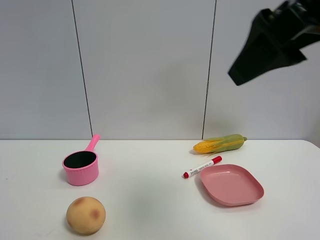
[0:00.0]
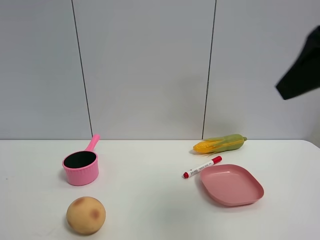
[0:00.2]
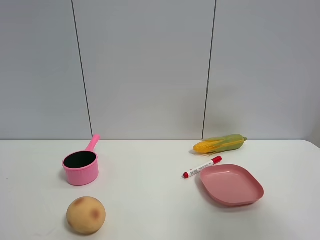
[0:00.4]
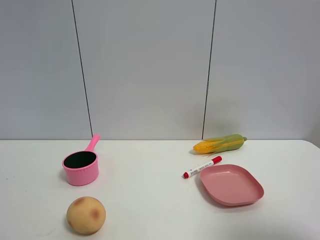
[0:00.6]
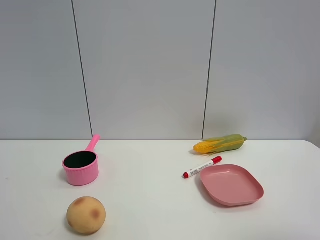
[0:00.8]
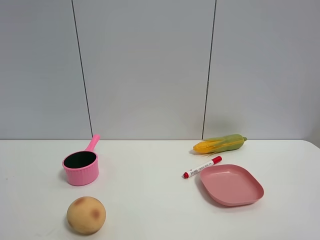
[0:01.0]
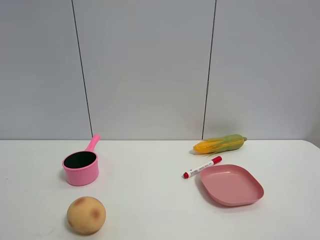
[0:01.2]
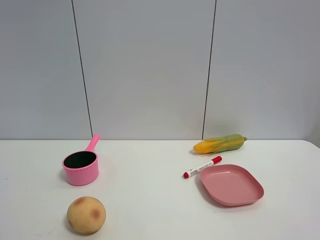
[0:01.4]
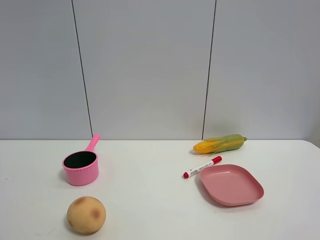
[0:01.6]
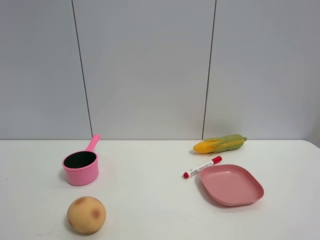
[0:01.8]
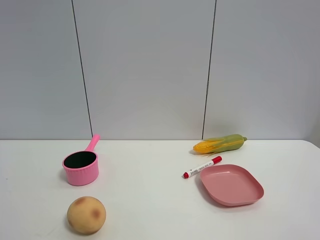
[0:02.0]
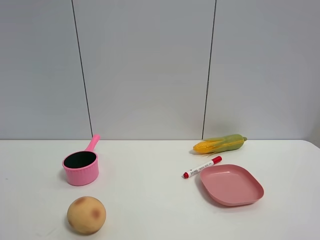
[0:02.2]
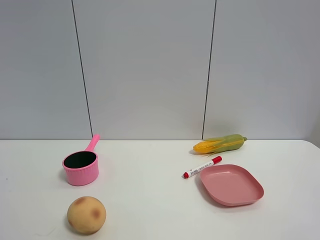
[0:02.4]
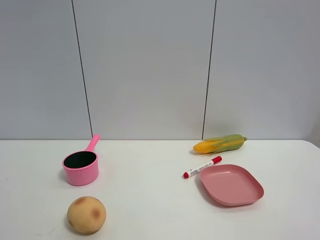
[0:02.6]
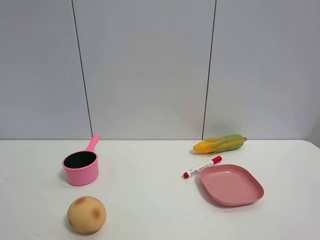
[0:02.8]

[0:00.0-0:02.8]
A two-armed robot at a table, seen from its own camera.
Task of the whole recording: the gripper move the object.
0:00.0 to 0:01.4: The right gripper goes roughly 25 cm backward, to the right and downward.

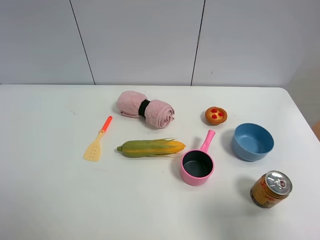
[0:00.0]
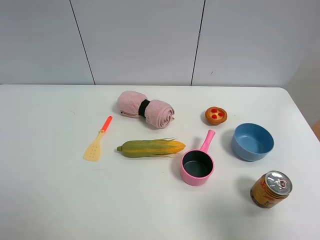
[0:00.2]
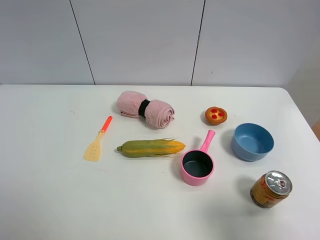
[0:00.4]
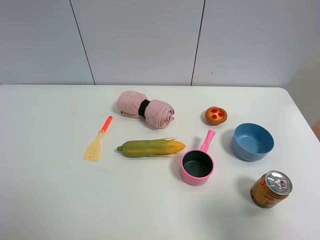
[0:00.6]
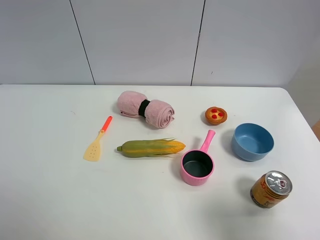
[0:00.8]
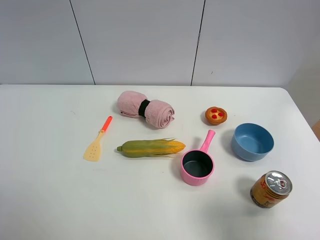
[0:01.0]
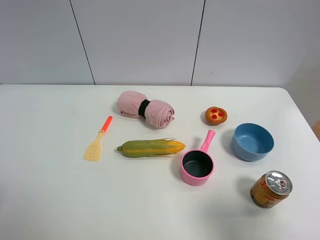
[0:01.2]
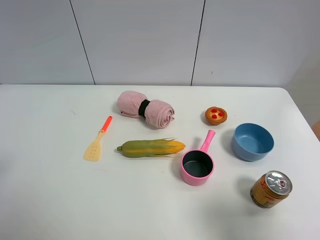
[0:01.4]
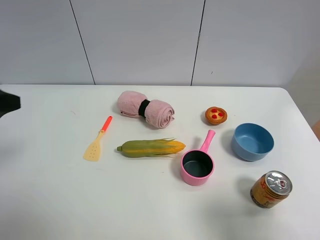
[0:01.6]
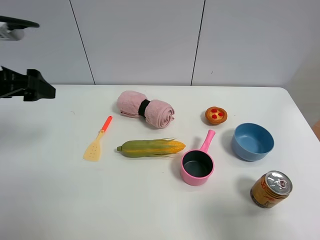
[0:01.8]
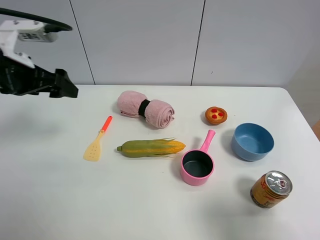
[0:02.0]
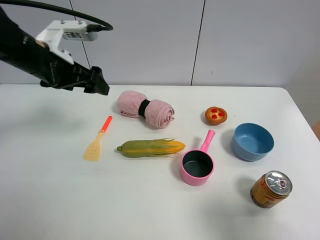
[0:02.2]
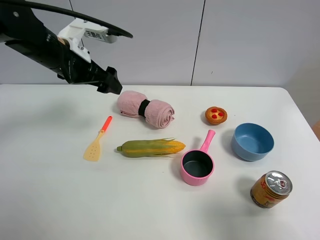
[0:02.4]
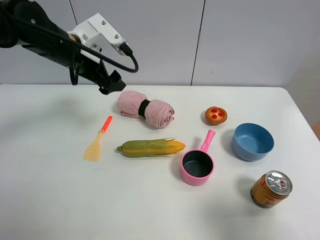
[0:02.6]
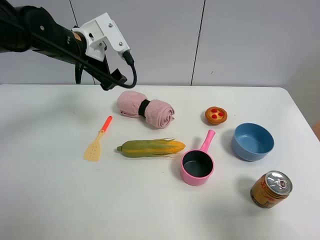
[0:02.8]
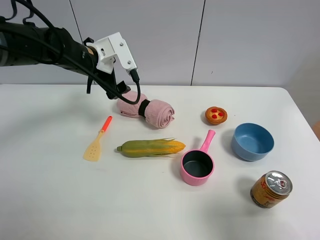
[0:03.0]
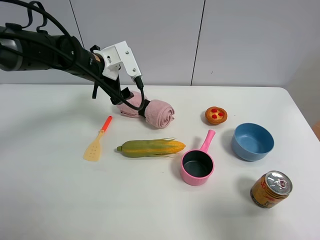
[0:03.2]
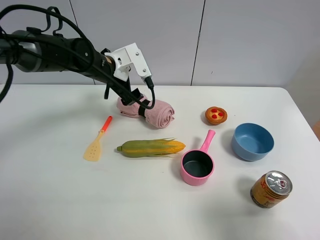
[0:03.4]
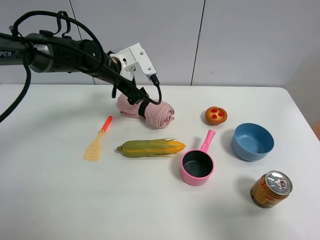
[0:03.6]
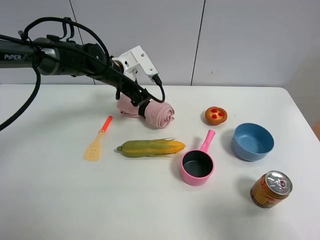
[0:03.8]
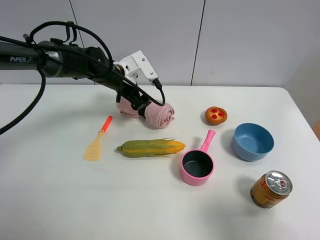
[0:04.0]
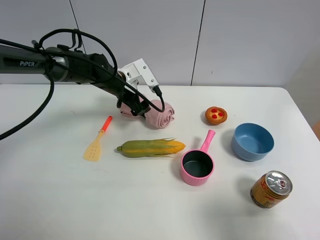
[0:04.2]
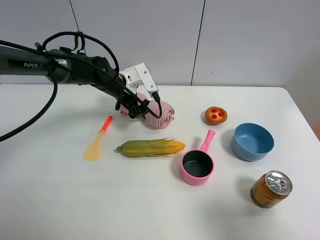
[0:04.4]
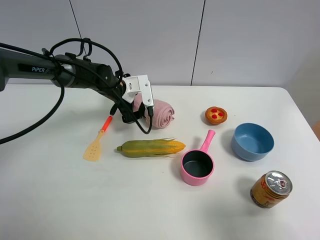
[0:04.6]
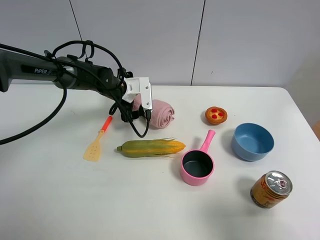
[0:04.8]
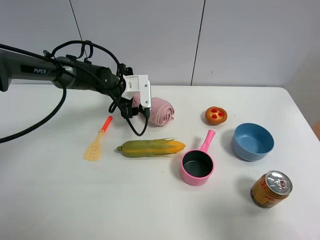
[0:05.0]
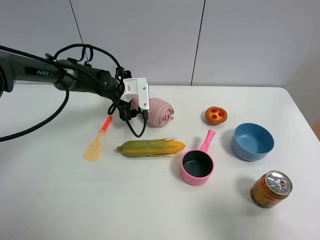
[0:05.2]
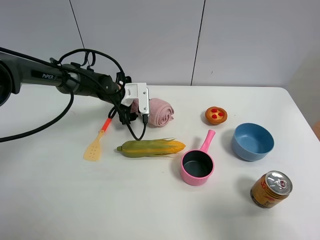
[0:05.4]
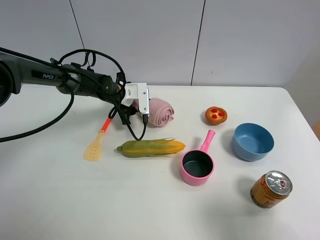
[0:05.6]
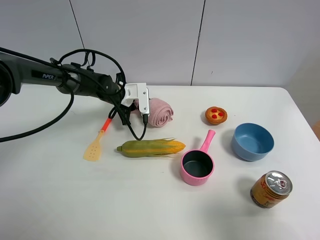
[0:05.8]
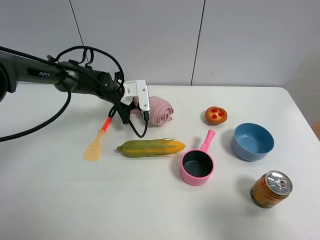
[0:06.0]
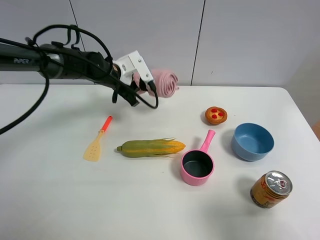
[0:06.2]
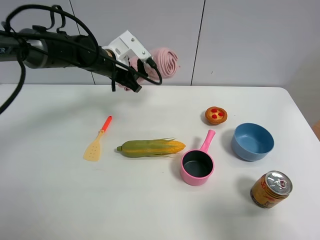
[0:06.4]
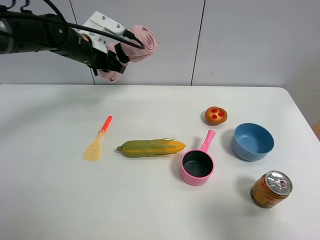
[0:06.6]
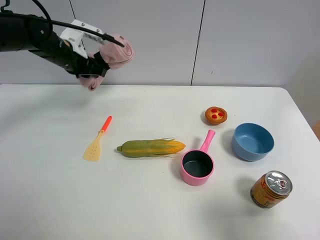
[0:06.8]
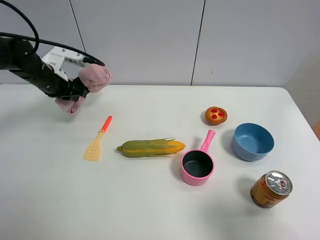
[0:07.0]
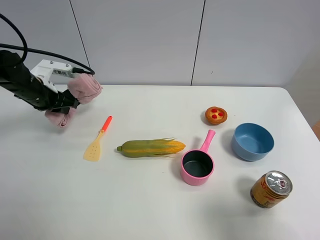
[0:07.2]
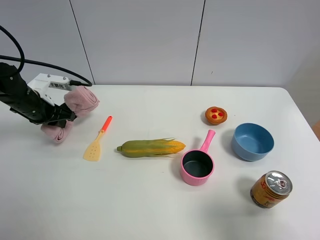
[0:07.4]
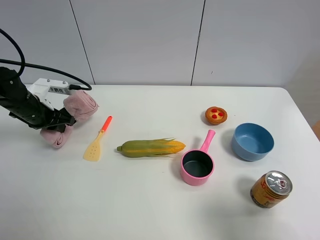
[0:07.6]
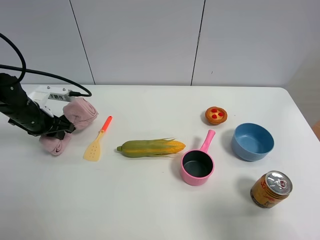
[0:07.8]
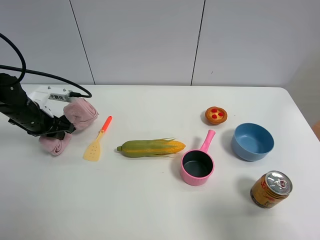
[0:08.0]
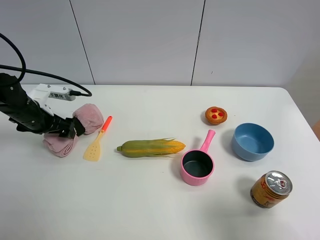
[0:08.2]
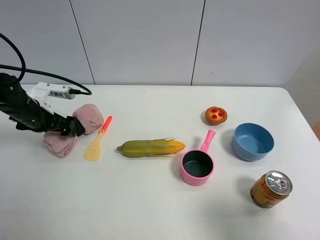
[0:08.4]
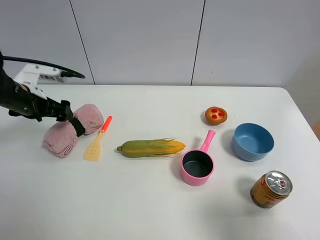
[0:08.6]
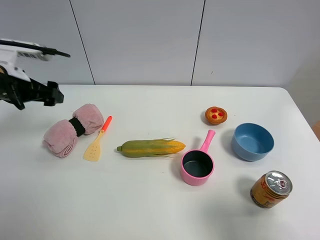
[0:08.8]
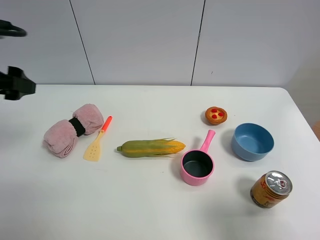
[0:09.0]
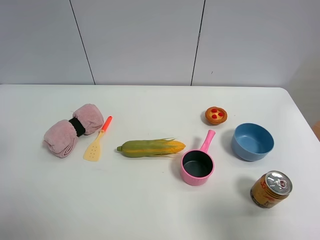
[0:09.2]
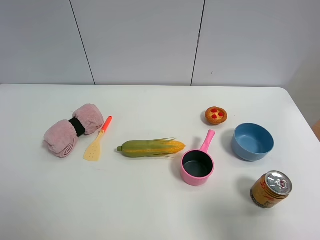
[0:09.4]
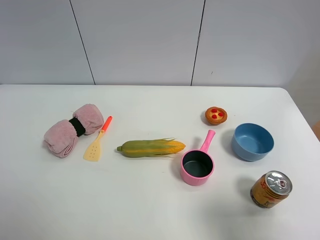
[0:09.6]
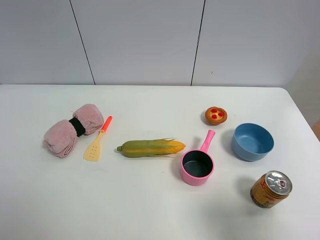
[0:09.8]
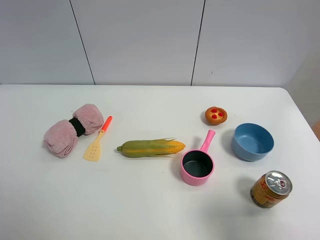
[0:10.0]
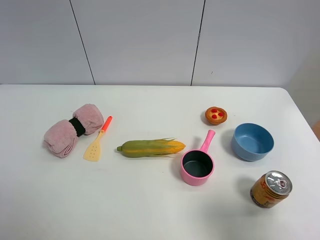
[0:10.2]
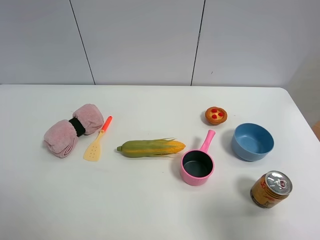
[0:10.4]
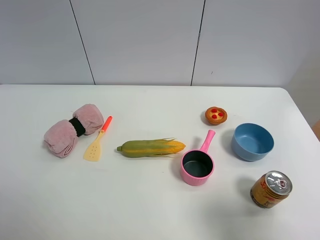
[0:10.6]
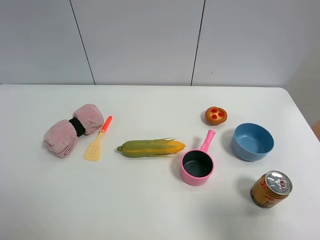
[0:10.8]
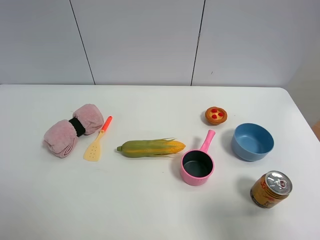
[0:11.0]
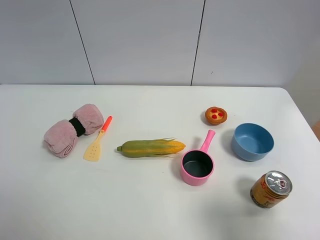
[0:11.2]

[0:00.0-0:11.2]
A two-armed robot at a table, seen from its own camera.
Task of the whole recording: the gripper move the object.
Step, 0:00.0 to 0:05.6: Grasp the pink towel with the left gripper.
Step, 0:05.8 to 0:08.4: Place the pink towel on the table with the left gripper.
0:00.0 to 0:01.6: The left gripper is displaced forward by approximately 20 cm.
0:01.6 to 0:03.2: The left gripper heads forward, to the right and downward, covering about 30 cm.
0:03.2 to 0:04.8: The left gripper moves downward, about 10 cm.
0:04.8 to 0:06.4: The left gripper heads upward, covering some 10 cm, and closes up.
0:06.4 to 0:08.0: The left gripper travels to the left, backward and downward by approximately 20 cm.
0:08.0 to 0:09.6: The left gripper shifts about 35 cm backward and upward, and opens.

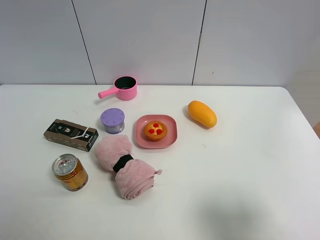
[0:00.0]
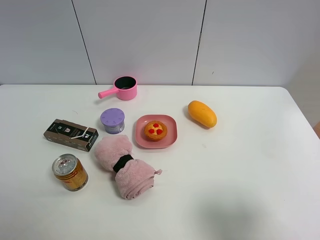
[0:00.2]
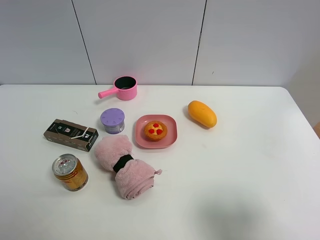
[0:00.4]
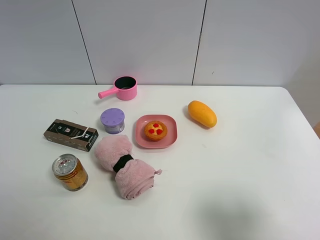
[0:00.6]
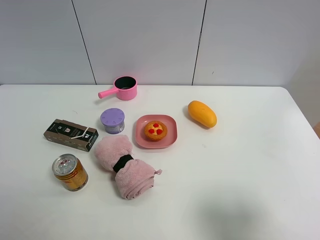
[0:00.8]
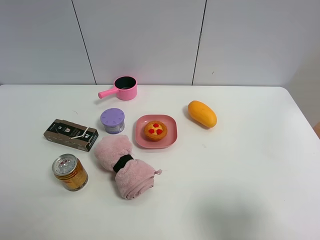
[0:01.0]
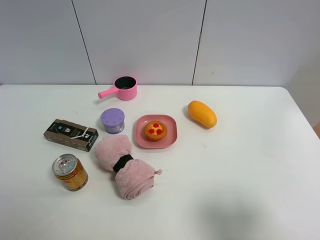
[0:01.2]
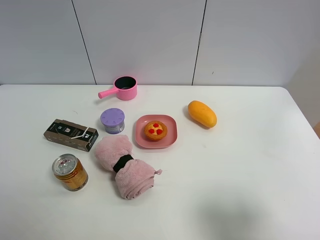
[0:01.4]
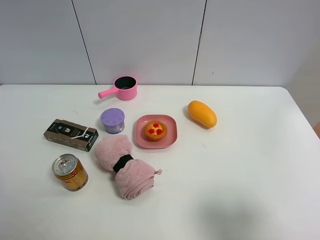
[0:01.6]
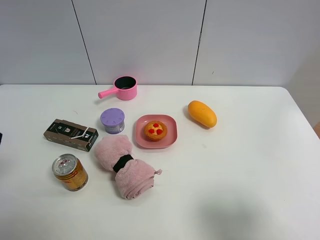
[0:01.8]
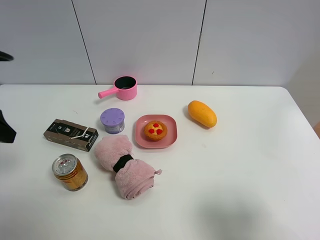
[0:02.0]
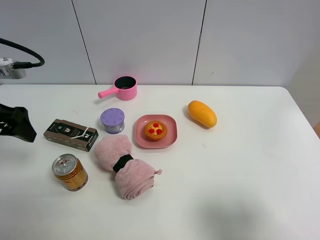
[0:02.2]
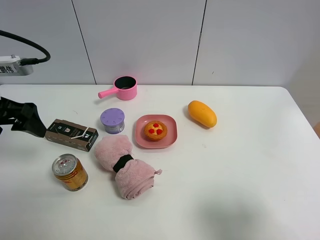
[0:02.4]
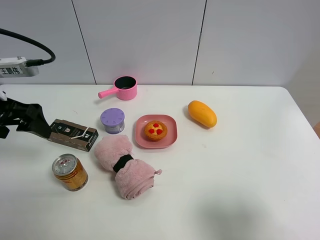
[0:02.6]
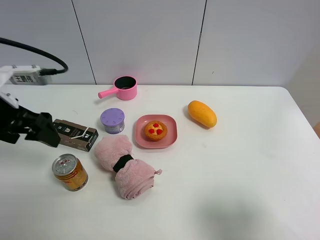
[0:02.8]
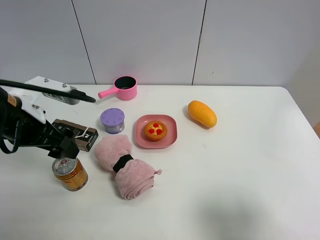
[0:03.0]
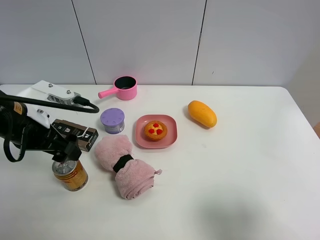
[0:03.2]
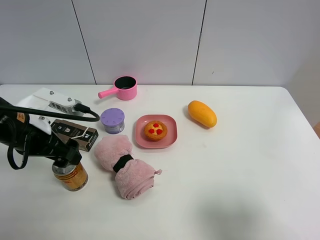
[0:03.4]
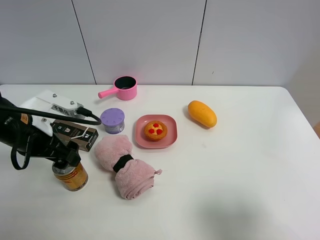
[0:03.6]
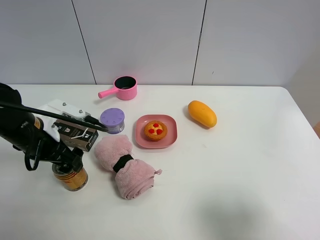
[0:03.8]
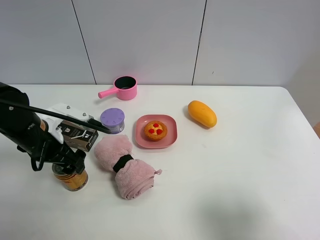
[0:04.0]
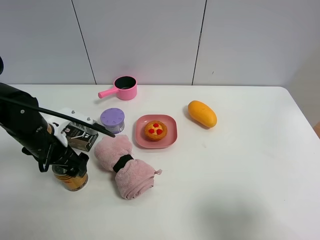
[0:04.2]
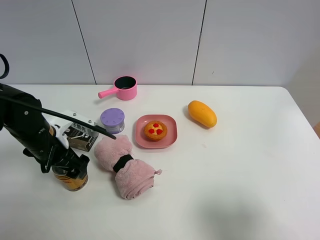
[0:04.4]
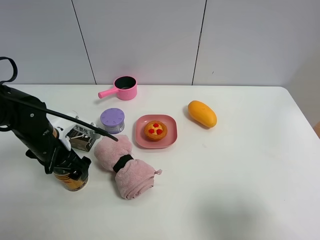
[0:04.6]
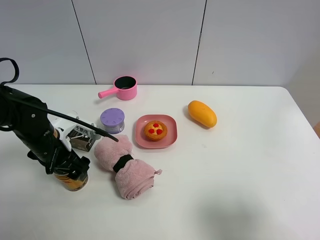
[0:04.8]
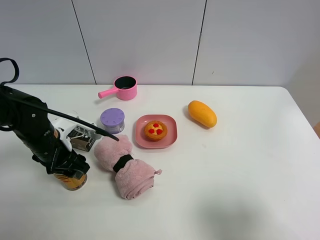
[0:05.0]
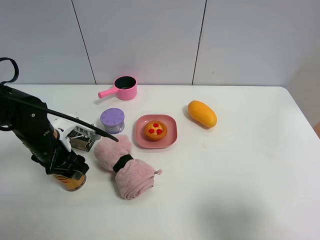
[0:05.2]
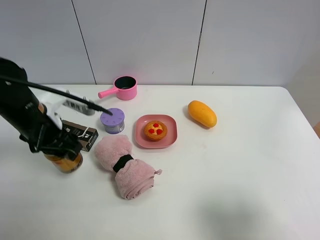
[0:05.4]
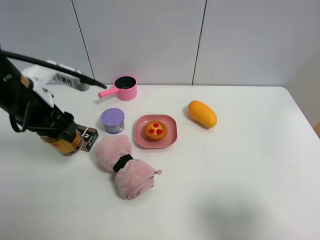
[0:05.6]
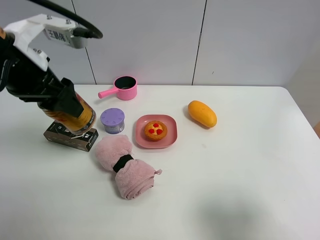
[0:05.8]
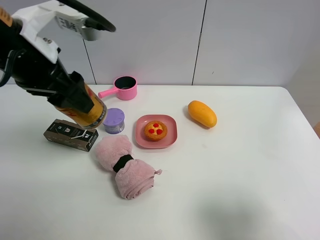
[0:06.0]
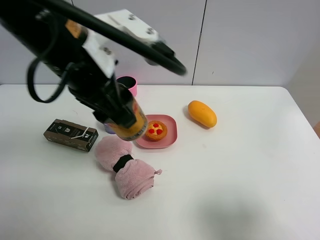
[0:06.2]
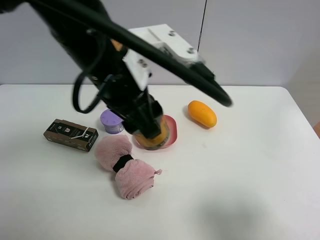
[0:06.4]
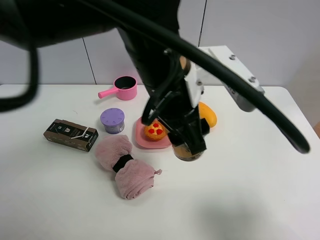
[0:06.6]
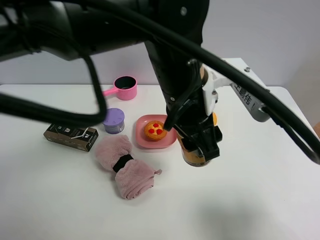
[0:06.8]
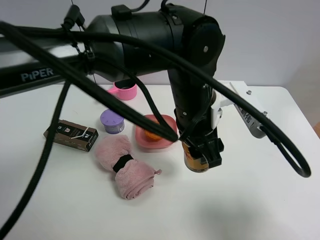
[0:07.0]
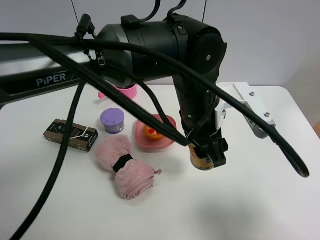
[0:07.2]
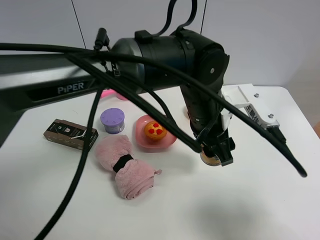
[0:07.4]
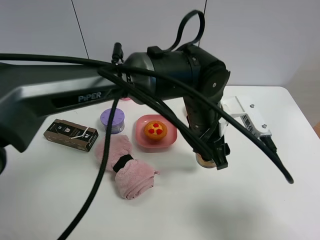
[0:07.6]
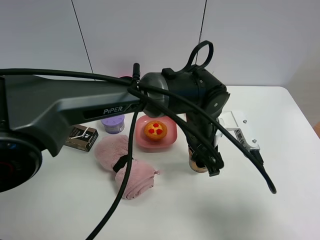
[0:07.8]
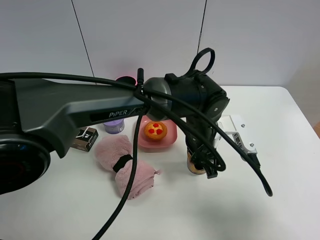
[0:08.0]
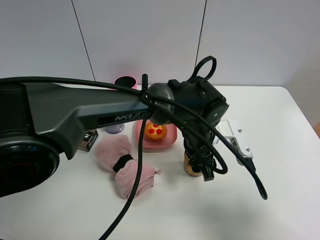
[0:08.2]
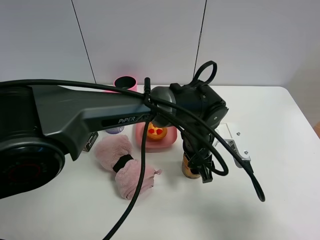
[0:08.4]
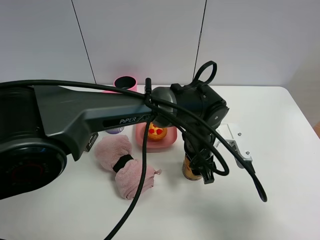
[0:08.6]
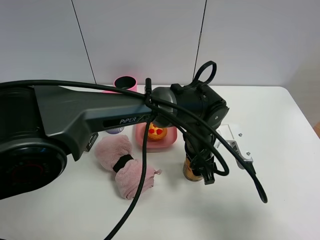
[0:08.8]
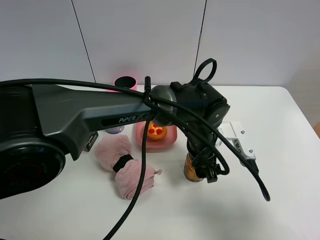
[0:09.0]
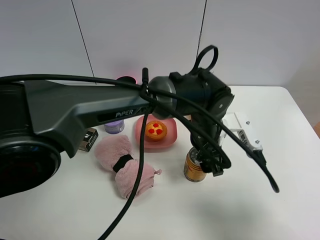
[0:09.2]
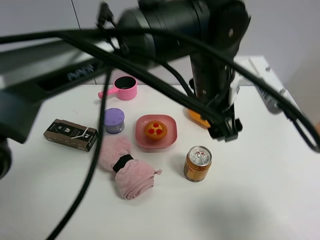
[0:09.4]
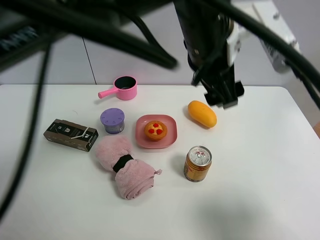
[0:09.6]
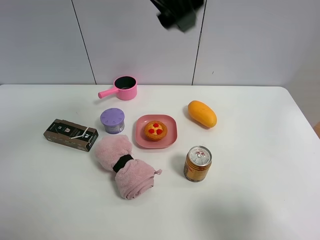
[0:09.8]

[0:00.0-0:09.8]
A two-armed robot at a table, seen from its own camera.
Task of the whole recording: the gripper move the object.
Step, 0:00.0 to 0:05.0: Grasp the red bull with the left gripper.
Step, 0:05.2 to 0:09.4: Place the red bull on the table with the left gripper.
0:01.4 to 0:02.8: The left gripper is displaced forward by approximately 20 cm, and opens.
0:02.8 to 0:04.2: The left gripper goes approximately 10 cm downward.
0:04.2 to 0:05.6: The left gripper moves upward, approximately 10 cm, and closes.
0:05.6 to 0:07.0: The left gripper goes about 30 cm to the right.
0:07.0 to 0:08.4: The left gripper is displaced downward by approximately 10 cm.
0:08.4 to 0:09.8: The left gripper shifts roughly 30 cm upward, and opens.
